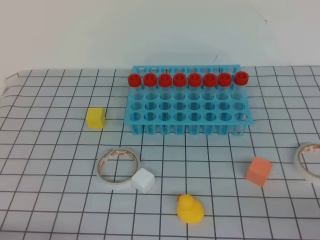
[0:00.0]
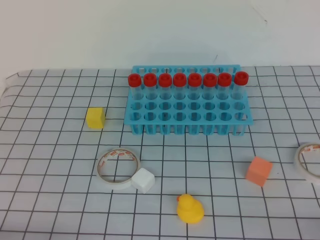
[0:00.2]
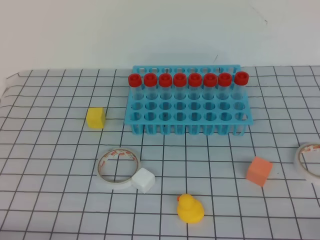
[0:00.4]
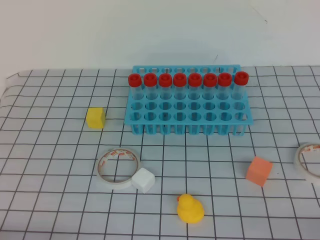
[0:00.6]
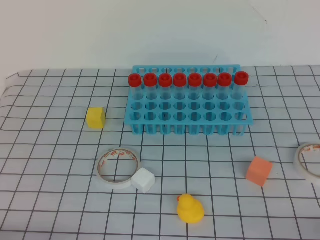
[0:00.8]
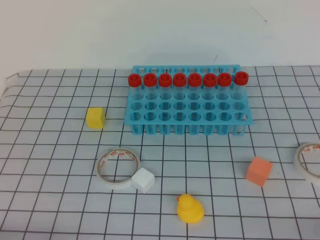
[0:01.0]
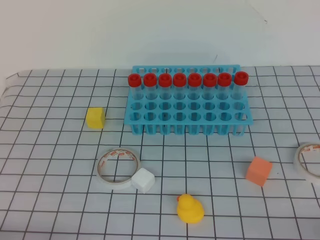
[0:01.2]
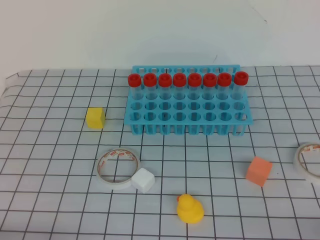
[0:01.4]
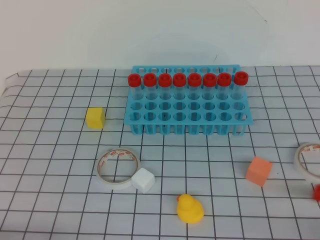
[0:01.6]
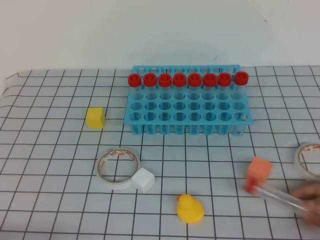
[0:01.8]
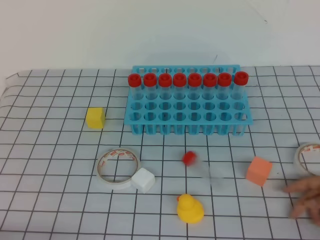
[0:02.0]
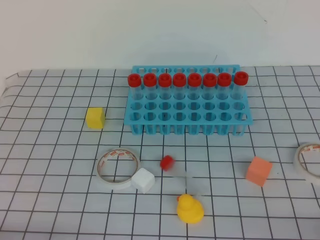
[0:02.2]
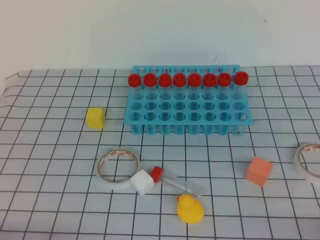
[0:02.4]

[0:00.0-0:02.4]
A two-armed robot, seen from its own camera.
0:01.2 to 0:02.4: The two grippers keep their place.
